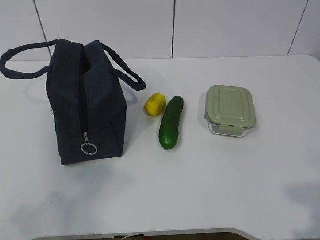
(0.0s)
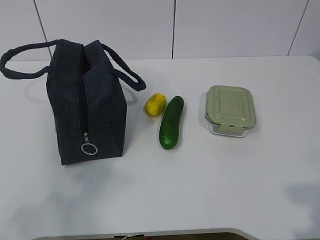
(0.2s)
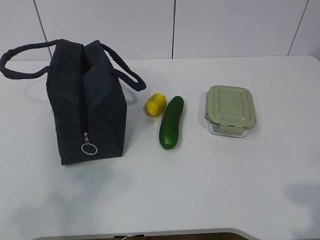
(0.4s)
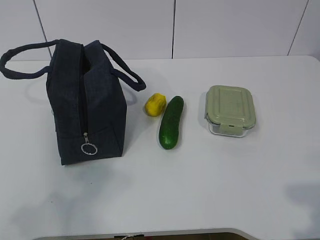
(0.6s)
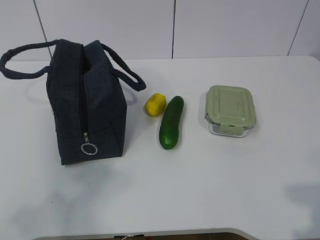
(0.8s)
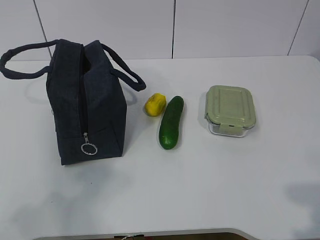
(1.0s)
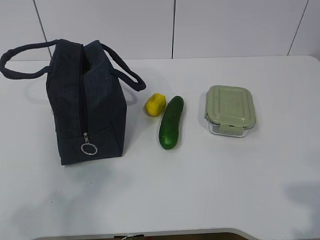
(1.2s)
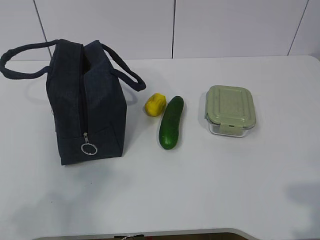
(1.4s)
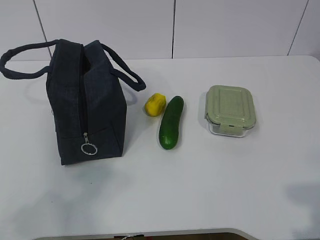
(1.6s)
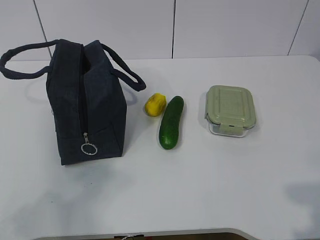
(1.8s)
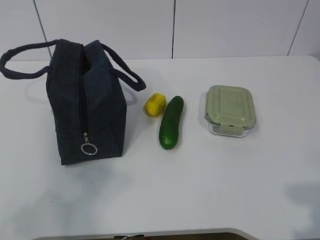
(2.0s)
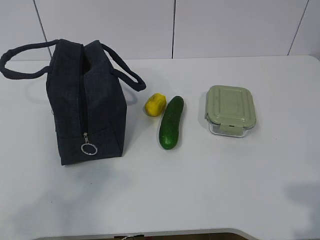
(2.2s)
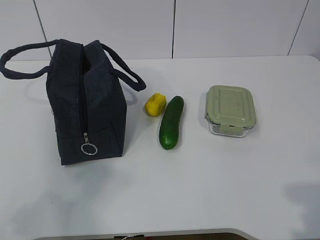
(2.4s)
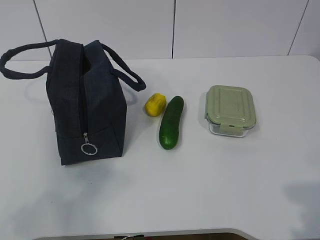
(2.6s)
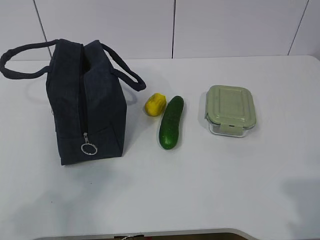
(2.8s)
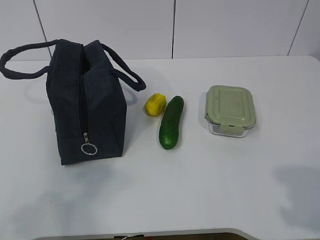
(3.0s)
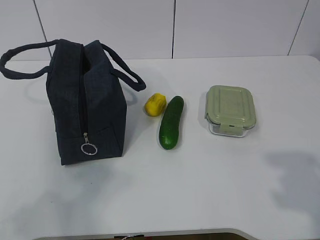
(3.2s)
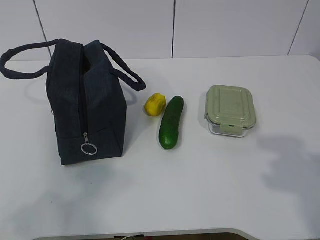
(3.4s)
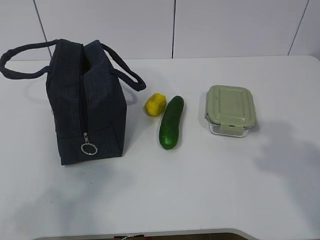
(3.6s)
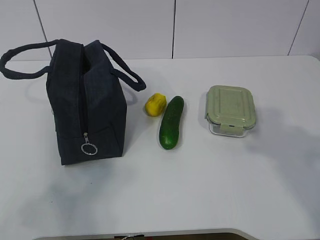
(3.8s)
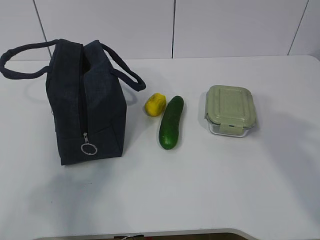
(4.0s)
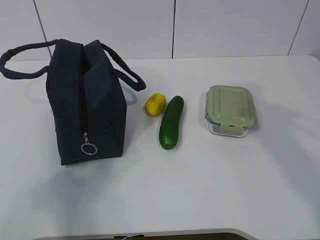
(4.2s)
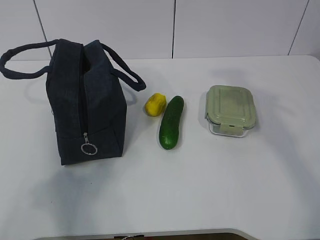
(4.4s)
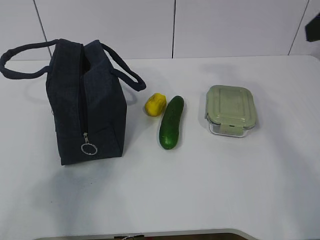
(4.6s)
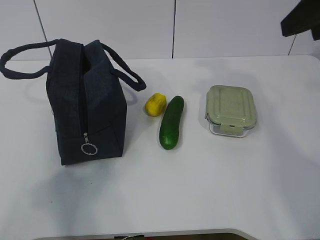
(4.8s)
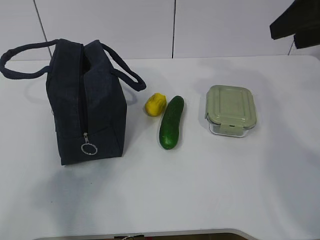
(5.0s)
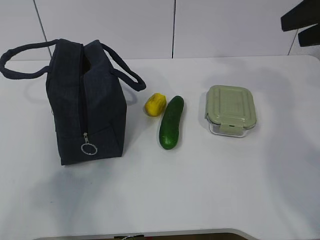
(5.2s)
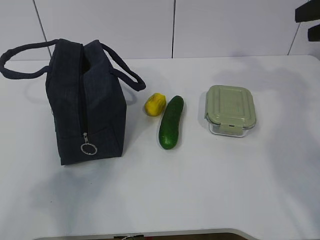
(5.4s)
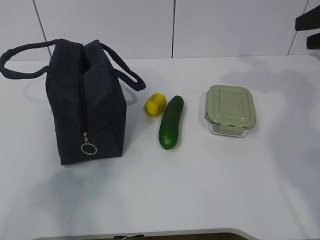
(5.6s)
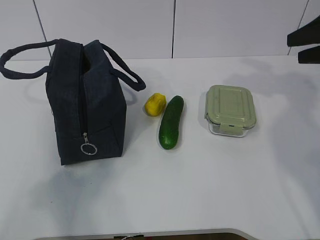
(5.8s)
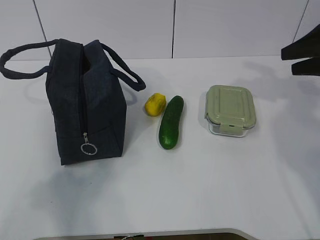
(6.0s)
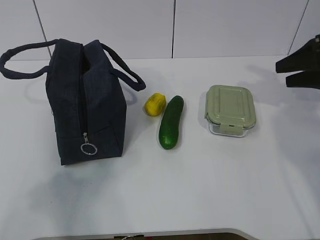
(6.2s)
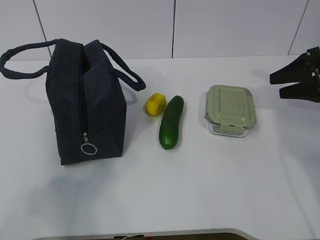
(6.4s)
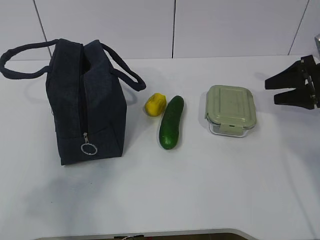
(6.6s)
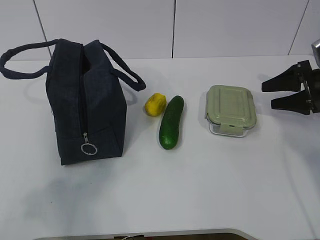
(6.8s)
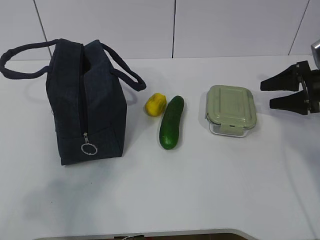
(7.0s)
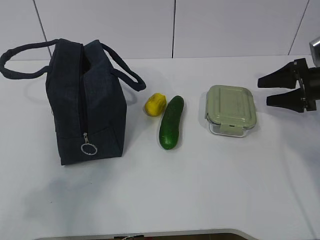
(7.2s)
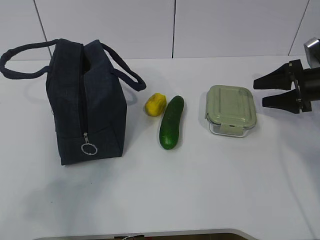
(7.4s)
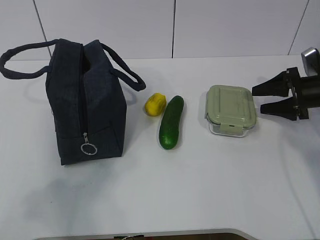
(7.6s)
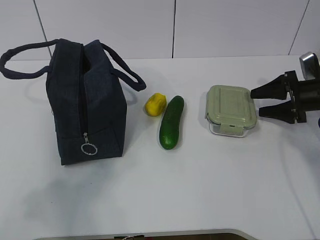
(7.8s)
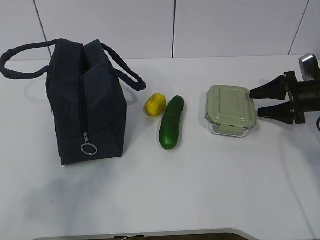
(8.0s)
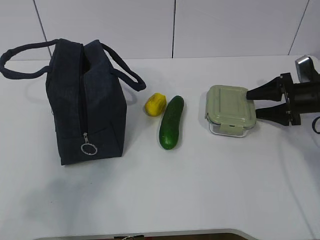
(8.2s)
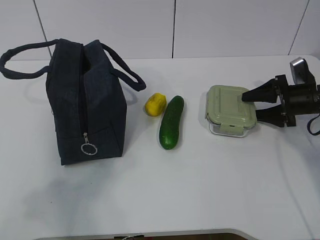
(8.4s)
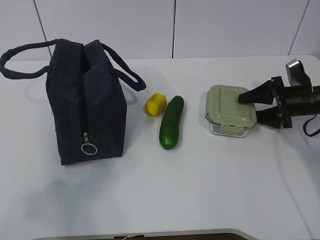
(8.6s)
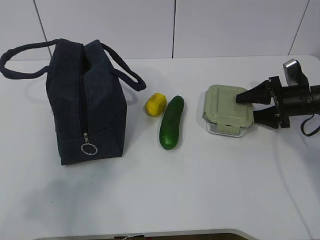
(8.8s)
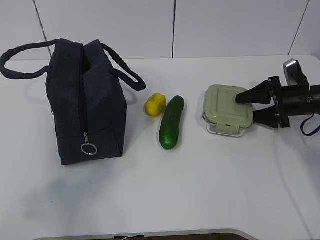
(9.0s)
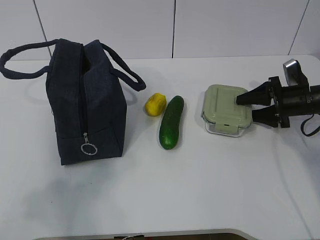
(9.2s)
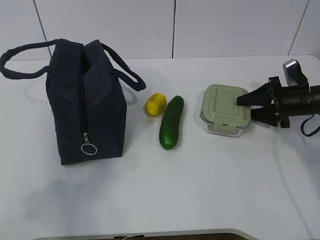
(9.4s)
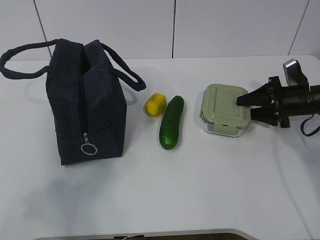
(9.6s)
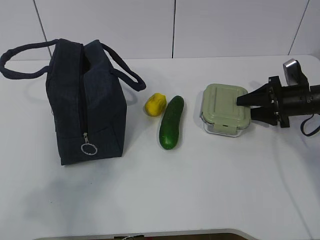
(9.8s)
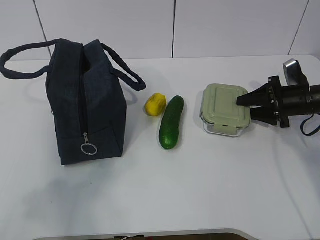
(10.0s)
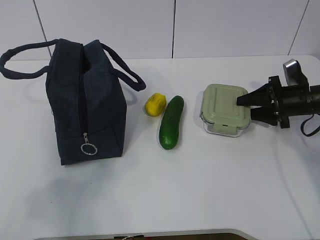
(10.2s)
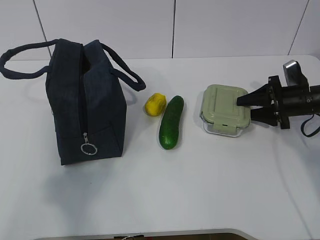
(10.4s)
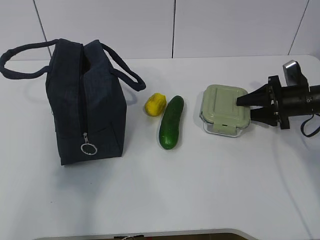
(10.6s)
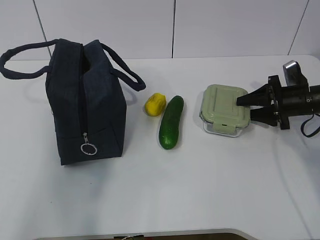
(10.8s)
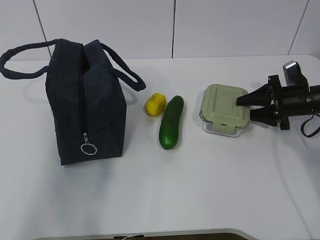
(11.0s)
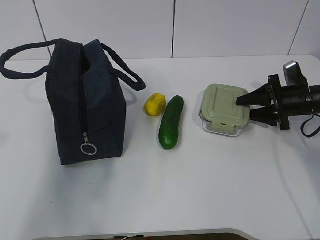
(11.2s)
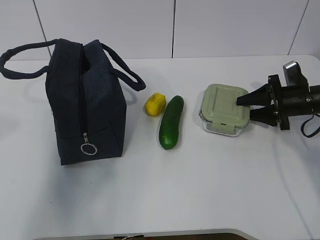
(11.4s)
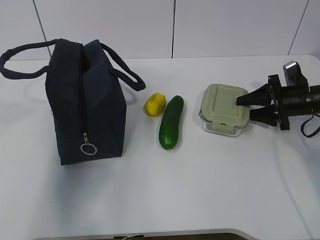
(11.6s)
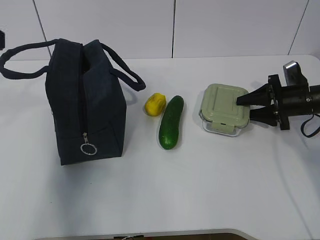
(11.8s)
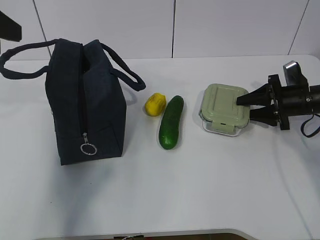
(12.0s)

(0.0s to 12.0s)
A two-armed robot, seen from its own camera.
Step, 0.0s - 7.6s: Grab the lunch box with your right hand.
4.4s - 6.0s: The right gripper moves forward, downward and to the right, roughly 20 cm.
6.0s - 7.6s: The right gripper travels downward by approximately 10 cm.
7.6s - 10.4s: There are only small adjustments of the grippers.
10.4s - 12.0s: The left gripper is displaced forward by about 25 cm.

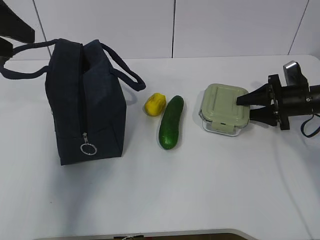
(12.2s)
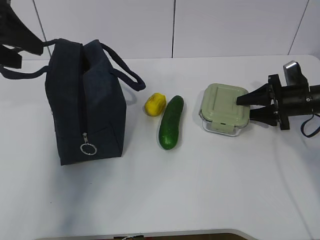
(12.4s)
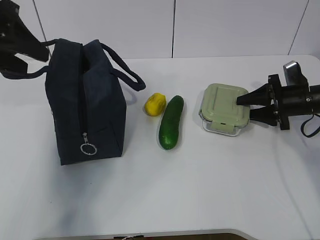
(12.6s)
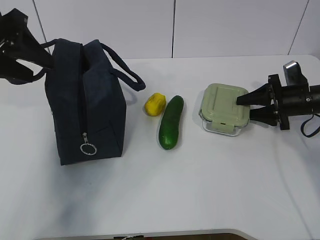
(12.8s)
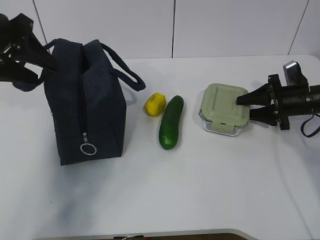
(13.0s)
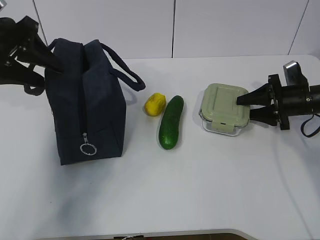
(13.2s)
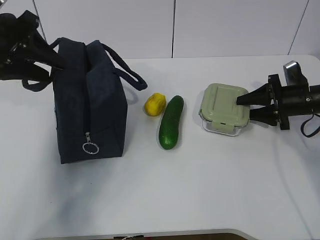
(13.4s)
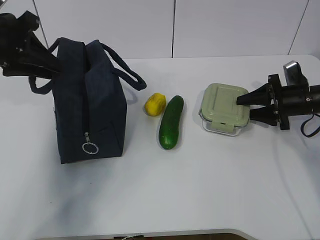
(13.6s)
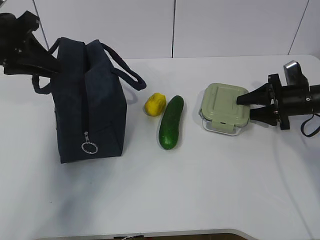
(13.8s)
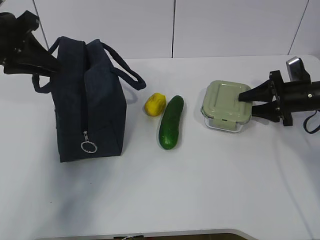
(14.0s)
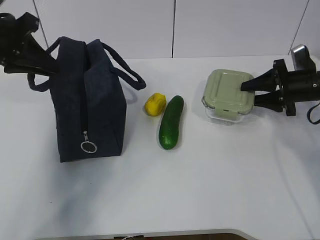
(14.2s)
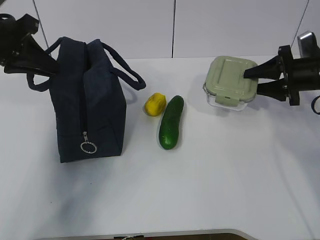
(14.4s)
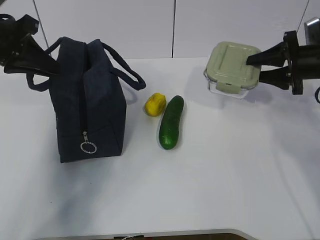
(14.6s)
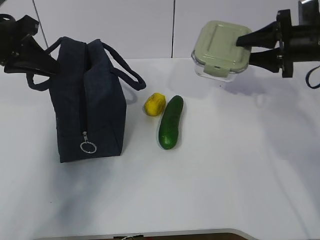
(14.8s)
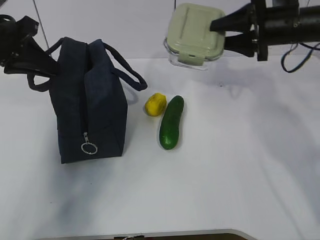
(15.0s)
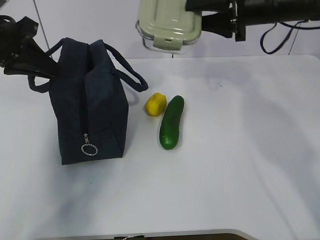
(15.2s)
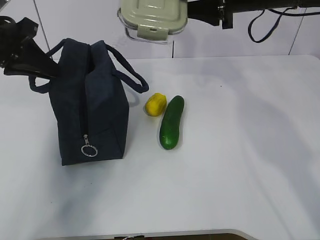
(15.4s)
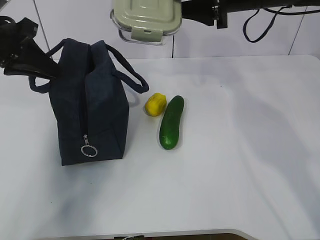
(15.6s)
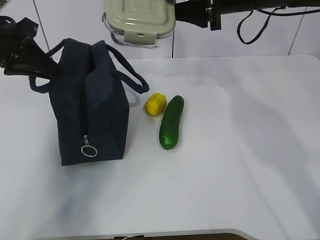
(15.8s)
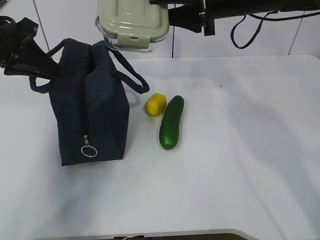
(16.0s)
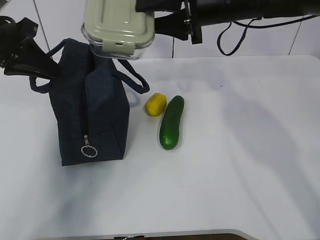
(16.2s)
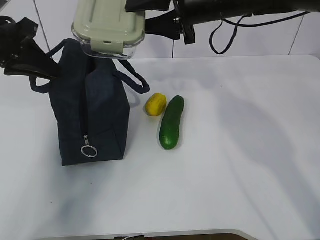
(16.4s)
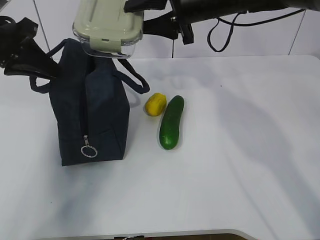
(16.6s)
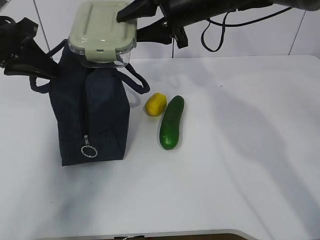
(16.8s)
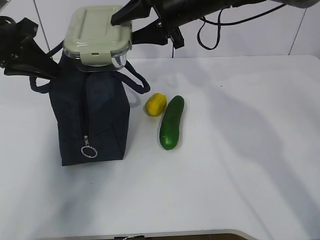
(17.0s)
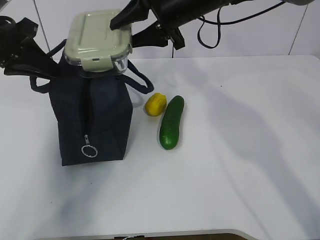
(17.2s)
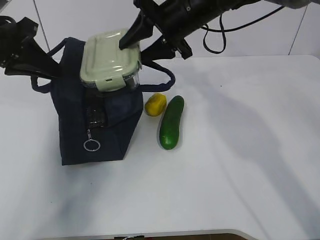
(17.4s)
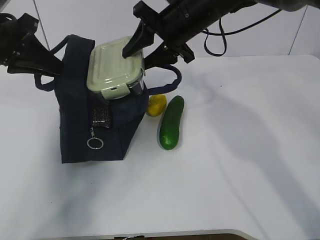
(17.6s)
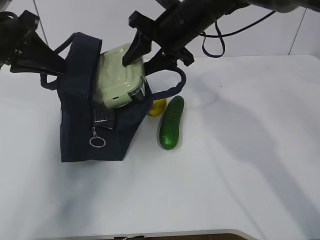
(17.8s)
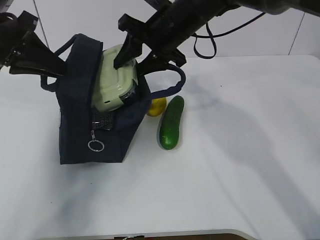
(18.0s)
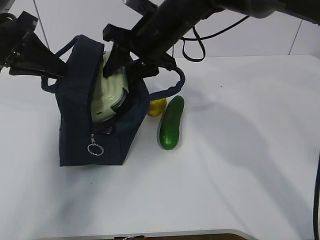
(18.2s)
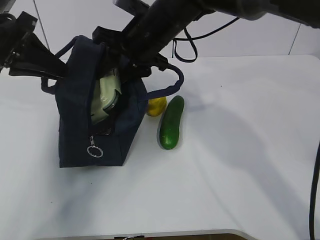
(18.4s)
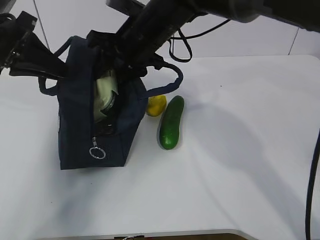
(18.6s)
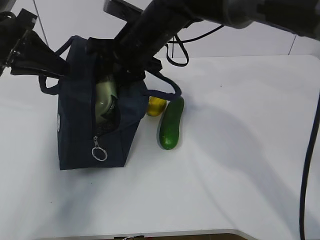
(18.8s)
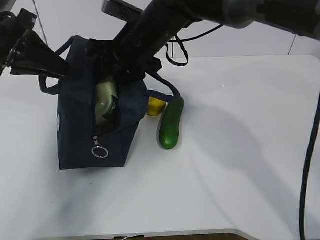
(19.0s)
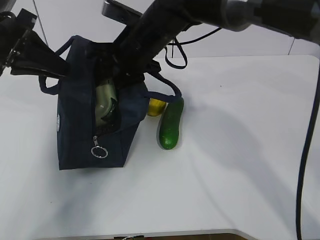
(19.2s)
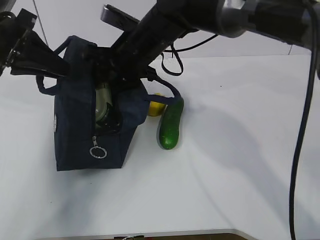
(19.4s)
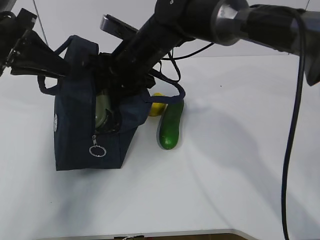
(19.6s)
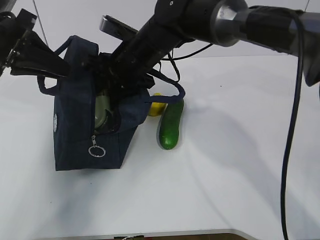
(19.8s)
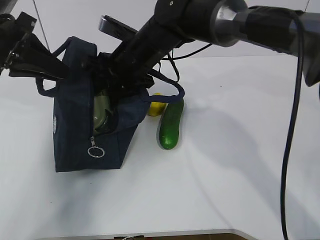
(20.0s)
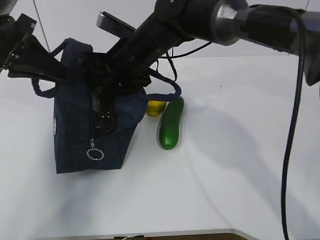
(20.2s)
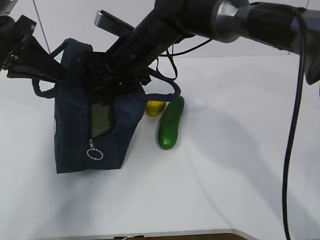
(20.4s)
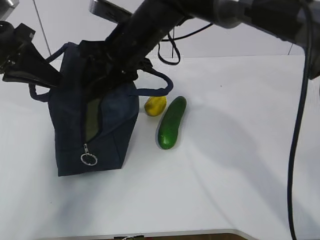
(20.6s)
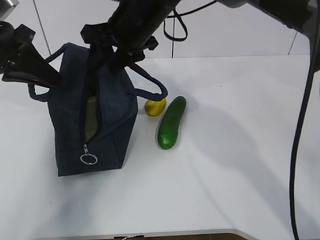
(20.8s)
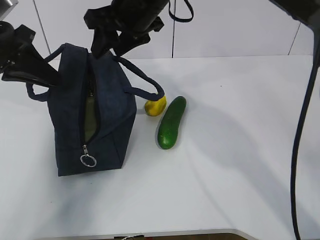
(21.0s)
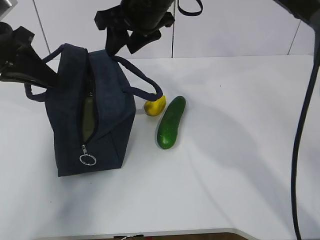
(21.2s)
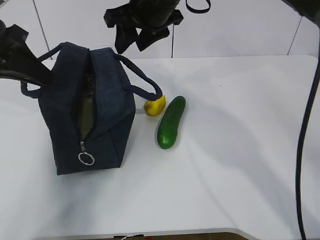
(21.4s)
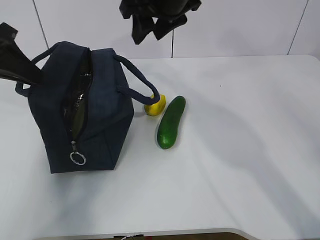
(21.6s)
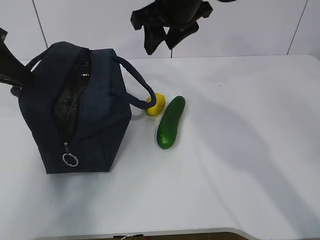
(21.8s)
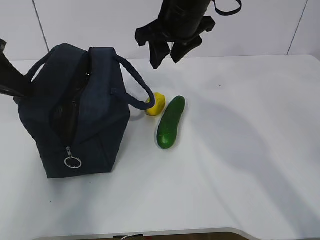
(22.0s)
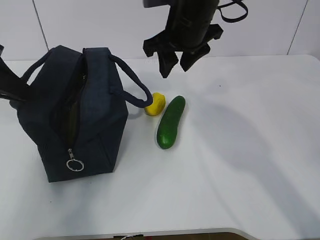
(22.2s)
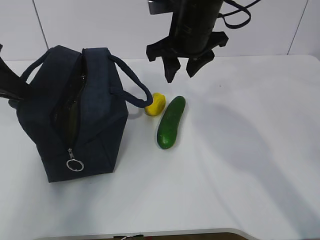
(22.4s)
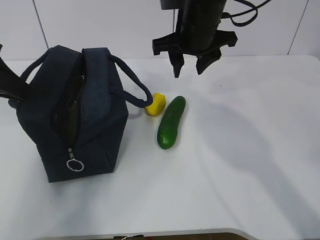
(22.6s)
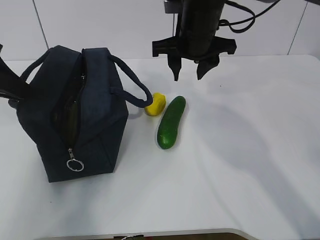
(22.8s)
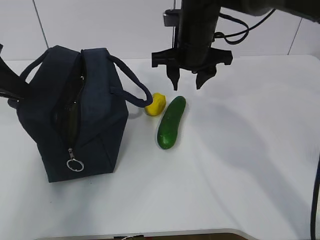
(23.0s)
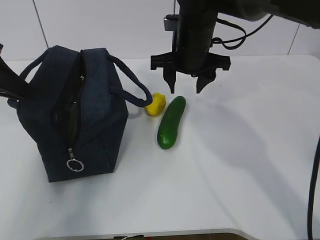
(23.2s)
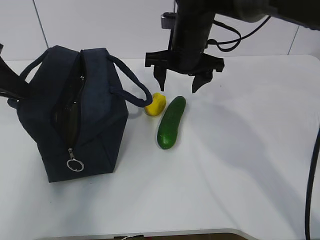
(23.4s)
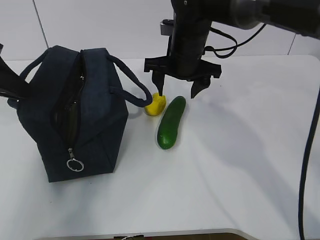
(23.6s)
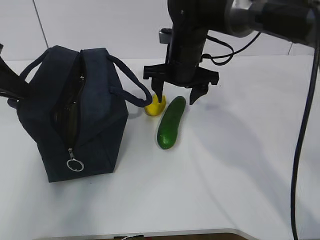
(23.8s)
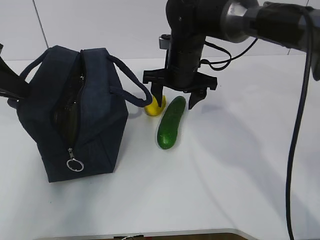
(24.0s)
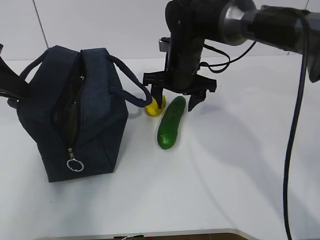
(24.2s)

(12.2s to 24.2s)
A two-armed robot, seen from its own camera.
Step, 14.0s - 17.0s: Place it into the bag with your right hand.
Step, 17.2s - 21.4s: Grab the cucumber with your right hand.
12.2s - 13.8s: The left gripper moves downward and forward, approximately 10 cm, and closes up.
13.8s - 15.2s: The right gripper shifts some 20 cm upward and to the left.
15.2s - 16.6s: The right gripper moves to the left, approximately 10 cm.
16.6s - 18.2s: The right gripper is displaced to the left by approximately 5 cm.
18.2s - 19.8s: The right gripper changes place by about 5 cm.
19.8s - 21.2s: The right gripper shifts about 10 cm upward.
21.2s - 22.6s: The right gripper shifts about 5 cm to the right.
22.6s - 24.2s: The right gripper travels downward by about 10 cm.
